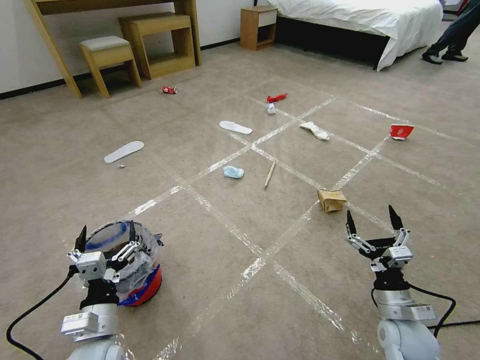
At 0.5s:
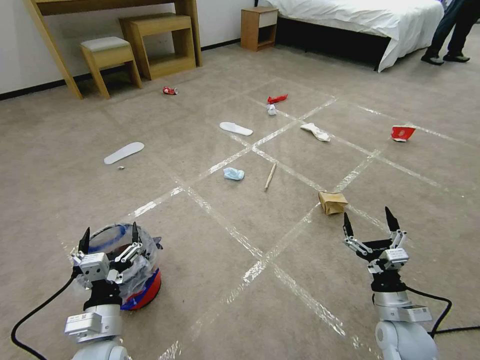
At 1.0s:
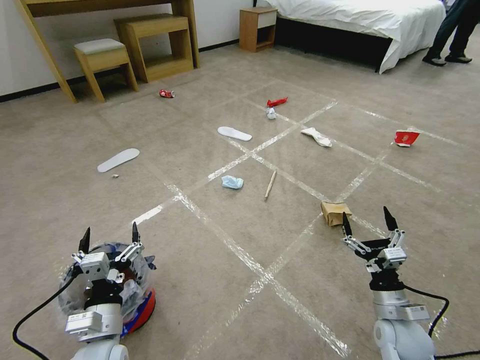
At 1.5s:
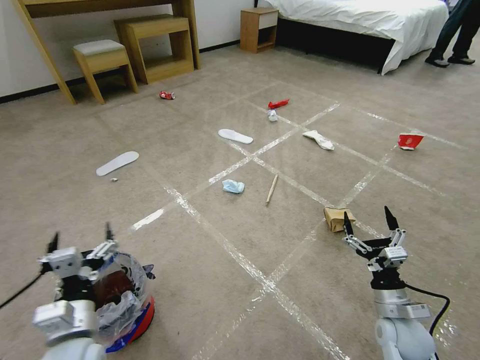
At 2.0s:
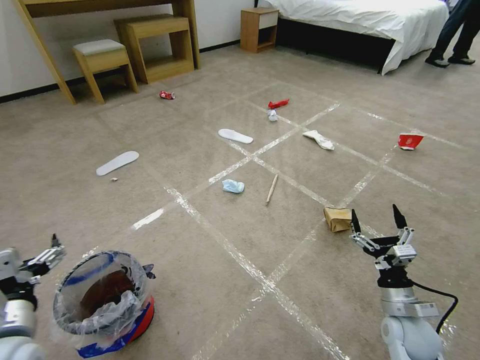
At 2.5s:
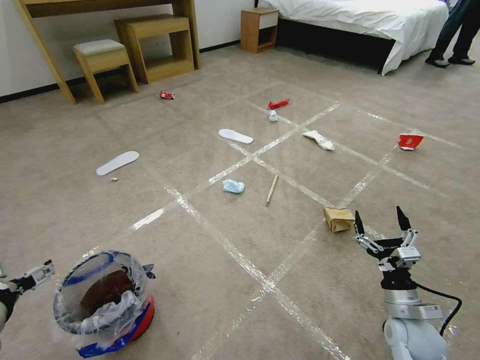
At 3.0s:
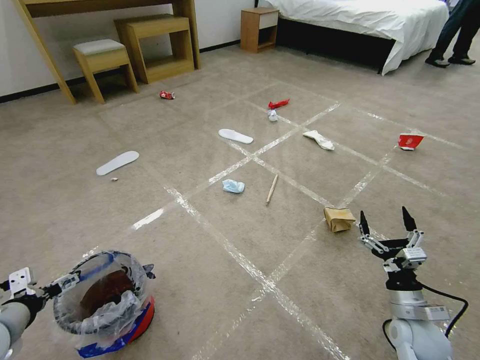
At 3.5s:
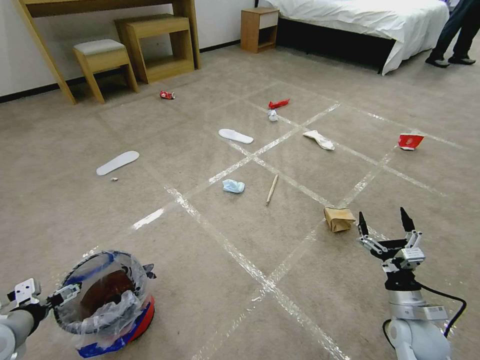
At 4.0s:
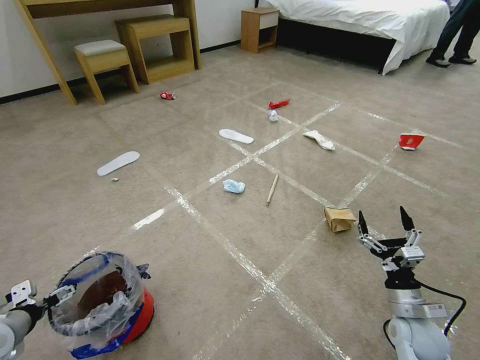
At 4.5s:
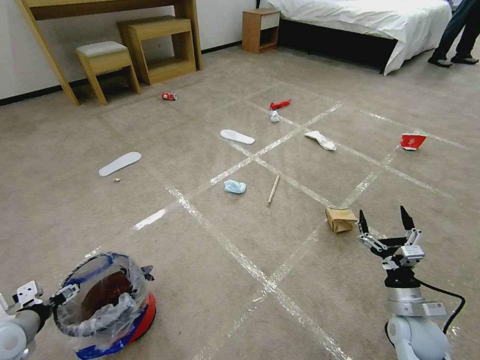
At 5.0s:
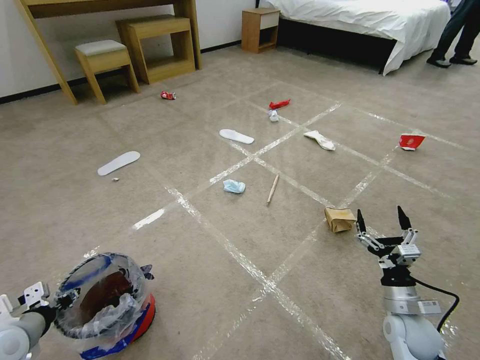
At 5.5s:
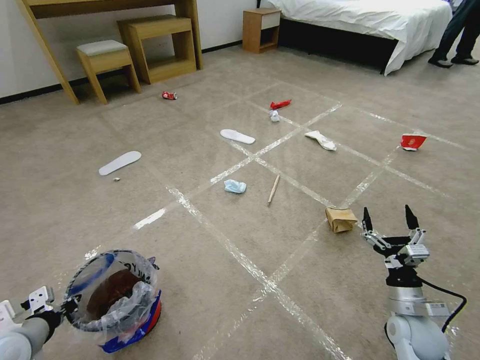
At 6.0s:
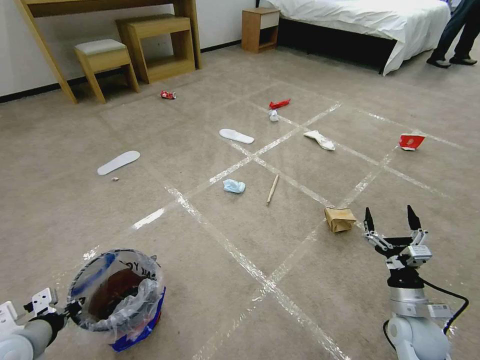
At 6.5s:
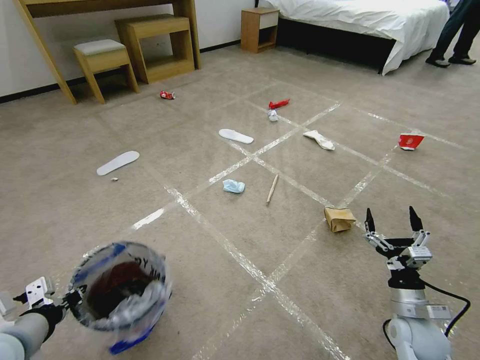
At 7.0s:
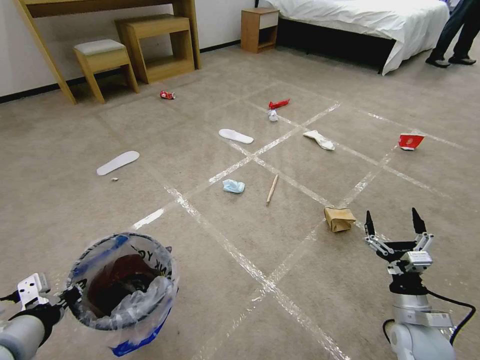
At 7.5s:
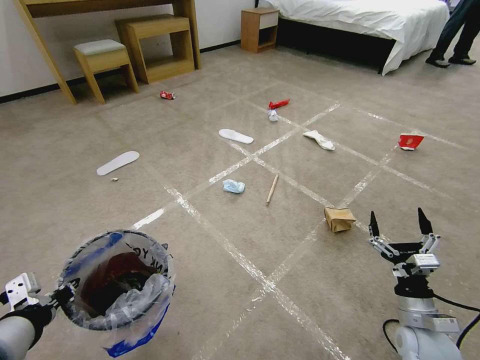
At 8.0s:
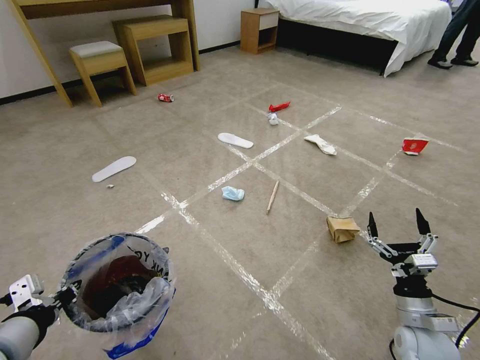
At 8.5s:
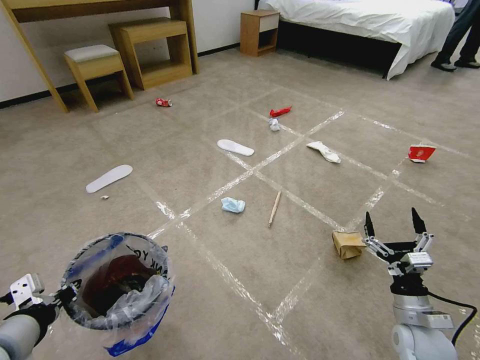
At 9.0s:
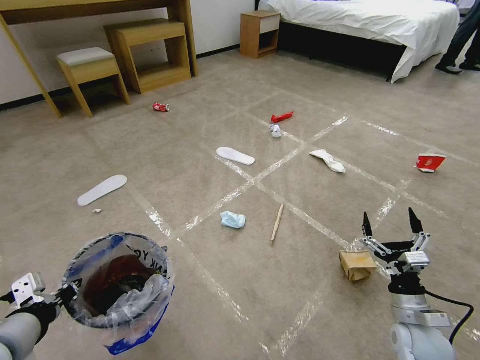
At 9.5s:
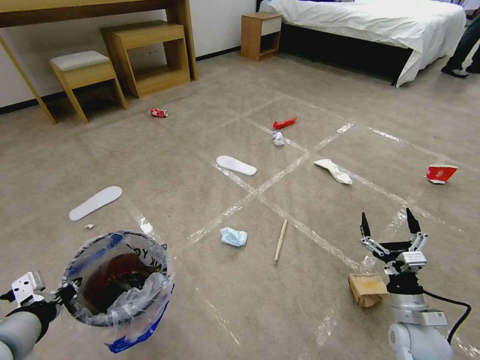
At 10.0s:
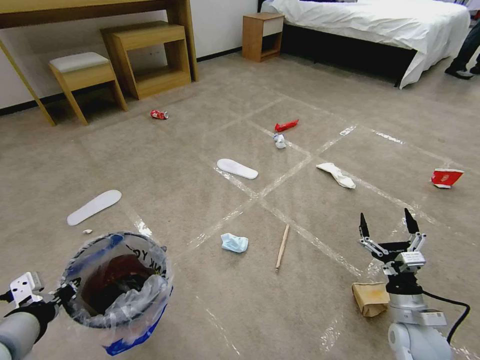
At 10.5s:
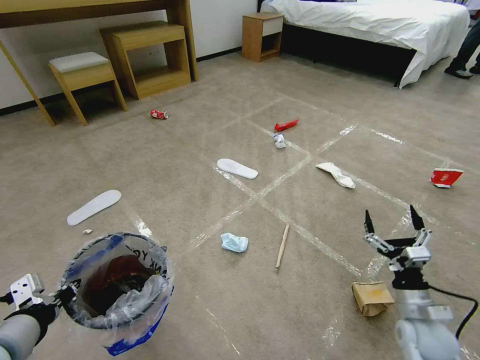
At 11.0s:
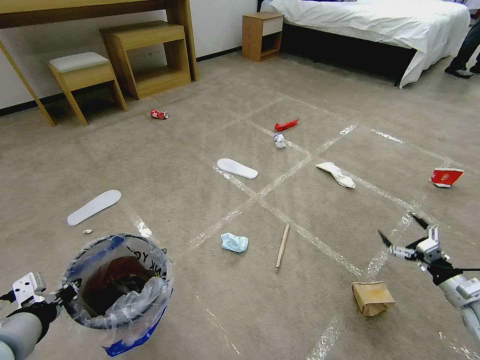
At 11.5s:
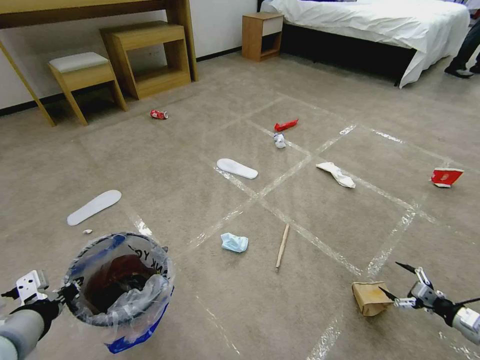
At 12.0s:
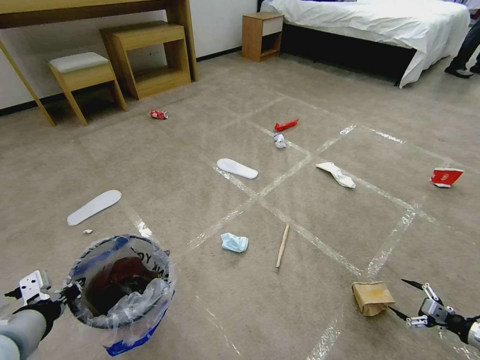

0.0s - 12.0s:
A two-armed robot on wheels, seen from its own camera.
Task of the whole recording: Pick up the trash bin and place the garbage on the floor into it.
2.0s - 4.0s: The left gripper moves to the left and downward, some 15 cm.
4.0s - 6.0s: The left gripper is displaced to the right by about 5 cm, and closes.
6.0s - 8.0s: The left gripper is displaced upward and to the right by approximately 15 cm.
10.0s - 12.0s: The right gripper shifts approximately 30 cm to the right.

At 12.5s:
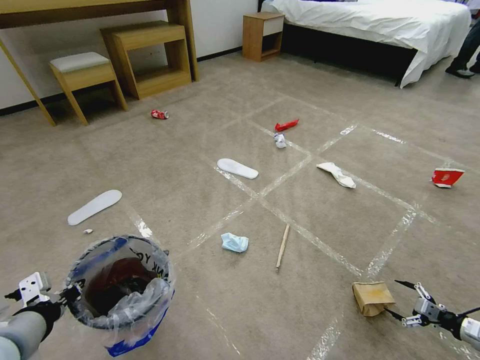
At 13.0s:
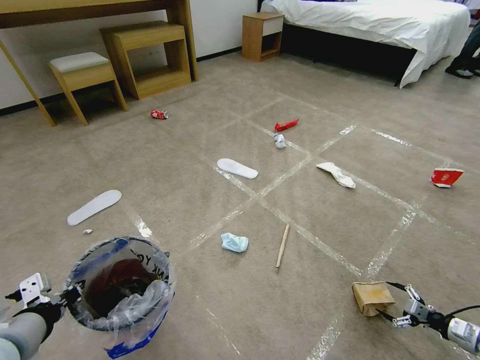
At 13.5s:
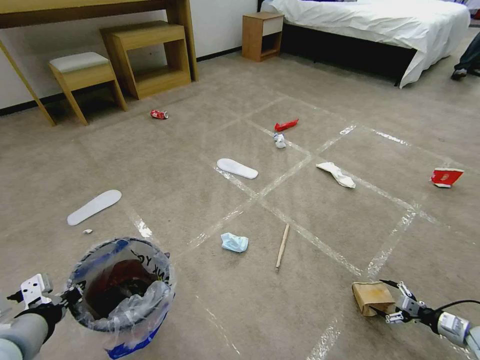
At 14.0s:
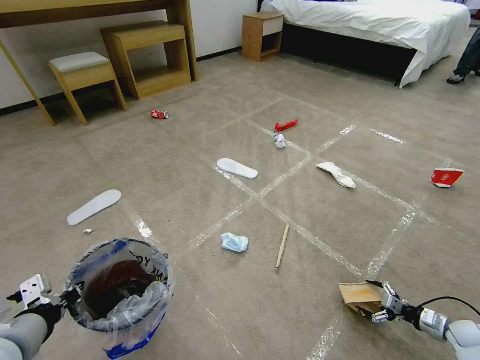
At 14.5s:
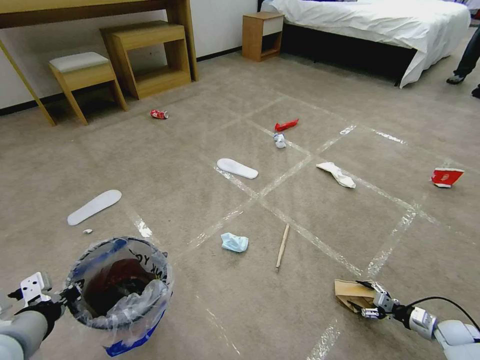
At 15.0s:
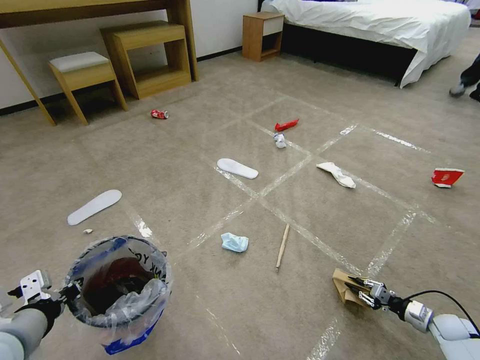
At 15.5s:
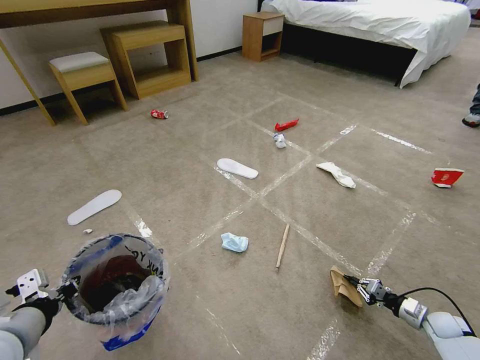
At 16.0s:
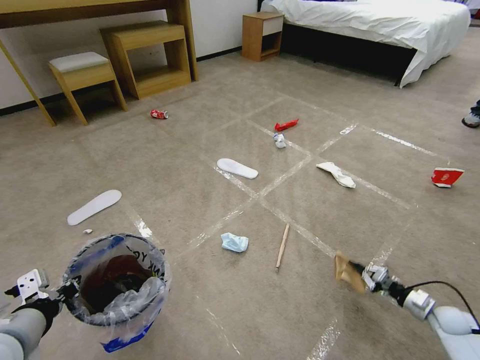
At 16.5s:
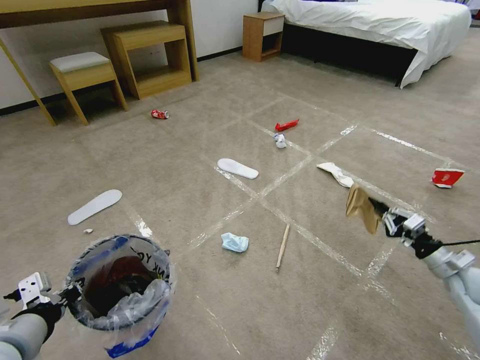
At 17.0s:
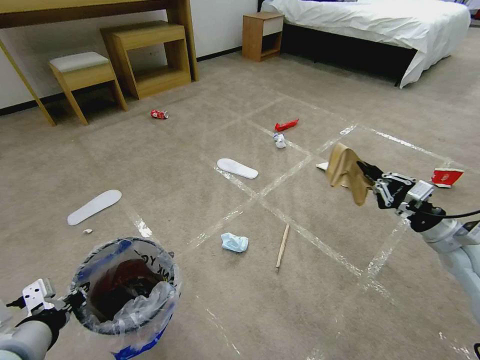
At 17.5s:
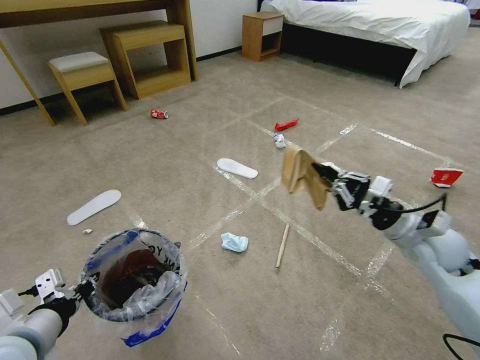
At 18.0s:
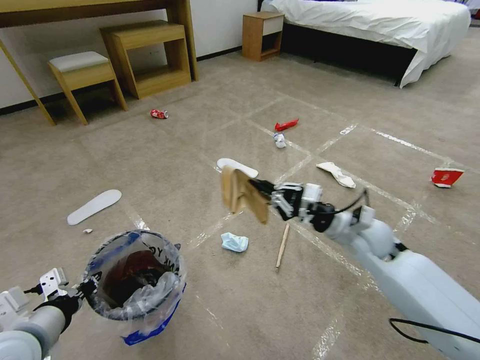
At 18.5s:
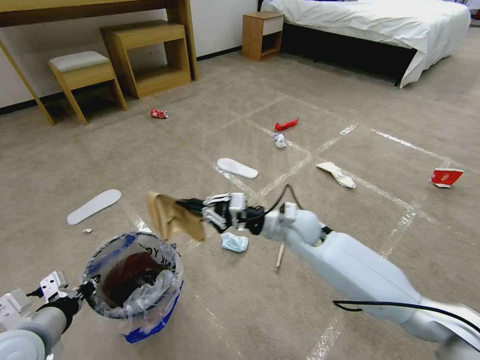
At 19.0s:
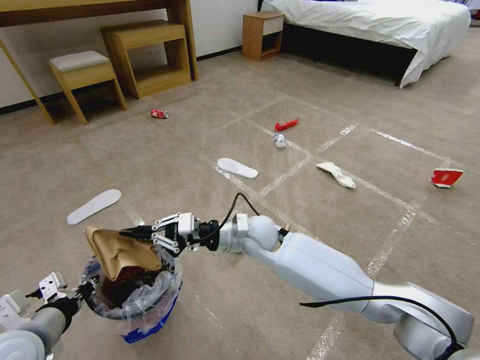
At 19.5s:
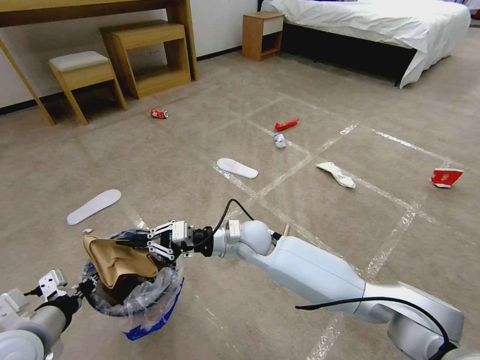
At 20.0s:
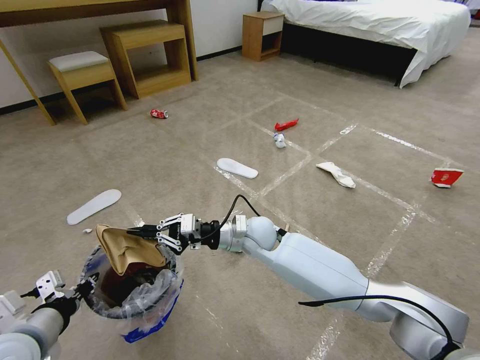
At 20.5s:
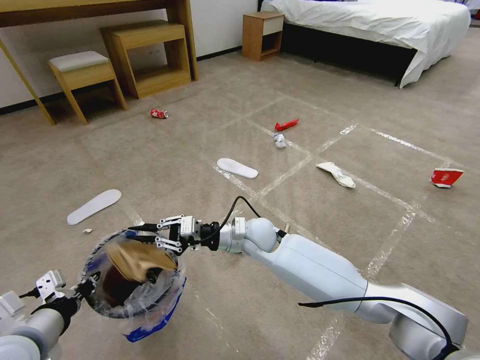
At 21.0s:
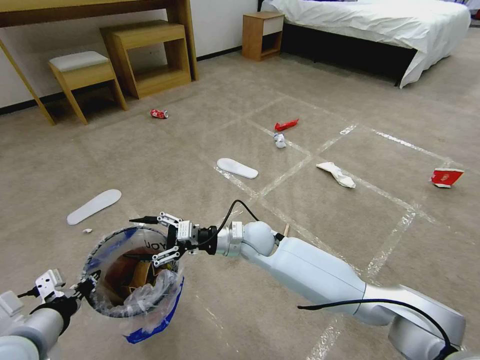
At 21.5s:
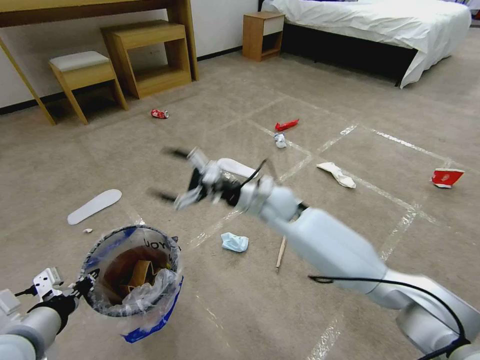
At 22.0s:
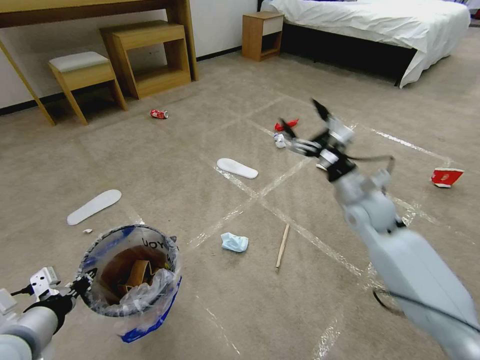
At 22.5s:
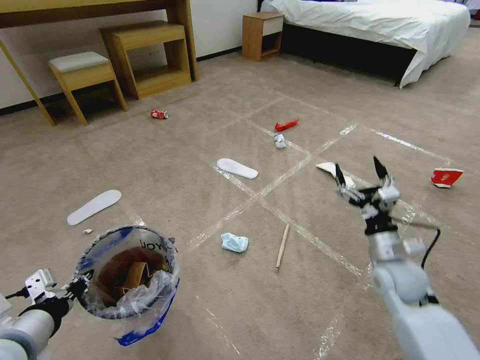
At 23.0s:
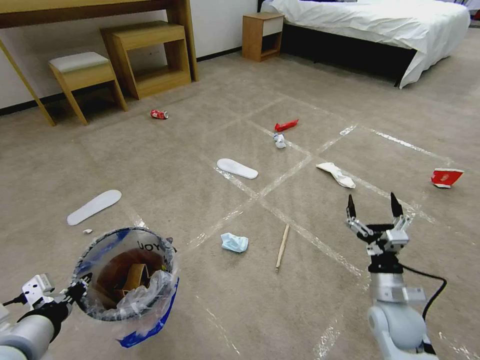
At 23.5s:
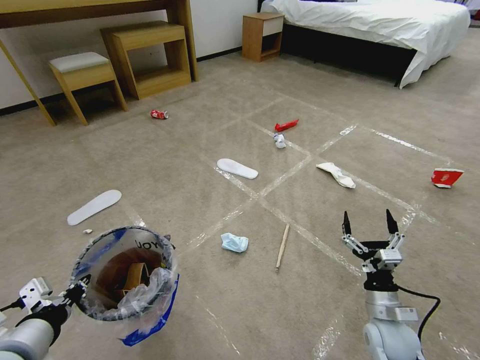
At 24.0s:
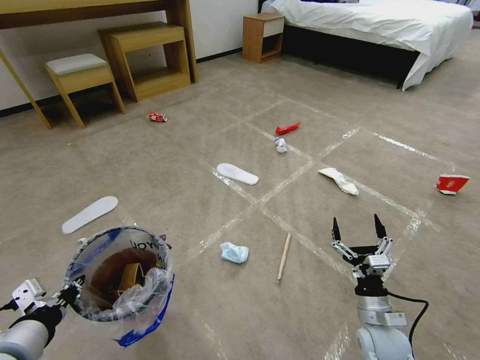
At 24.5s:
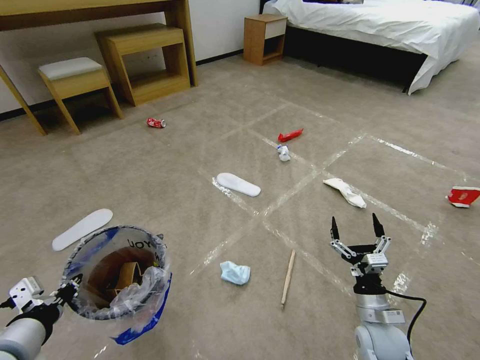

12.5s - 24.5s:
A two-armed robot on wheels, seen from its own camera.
Task of the whole recording: Pick up the trash bin and place the garbage on the floor into it.
12.5s - 14.5s: The right gripper heads downward, to the left and forward, covering roughly 10 cm.
14.5s - 16.5s: The right gripper heads upward, covering roughly 20 cm, and closes its fingers.
16.5s - 18.5s: The left gripper ends up roughly 5 cm from where it was. Meanwhile the right gripper goes about 40 cm to the left.
18.5s - 20.5s: The right gripper heads to the left, covering roughly 10 cm.
20.5s - 22.5s: The right gripper goes about 30 cm to the right, and opens.
22.5s - 24.5s: The right gripper travels downward and backward by roughly 15 cm.

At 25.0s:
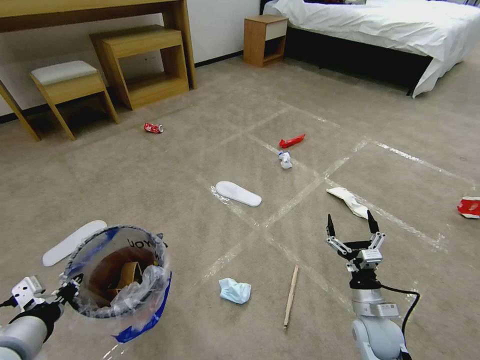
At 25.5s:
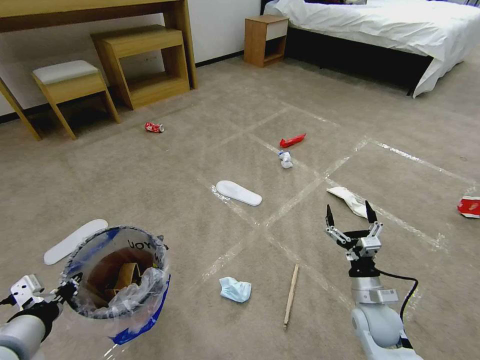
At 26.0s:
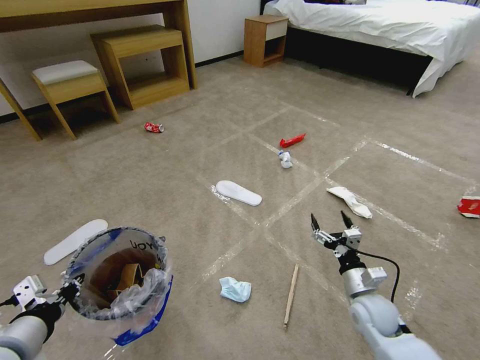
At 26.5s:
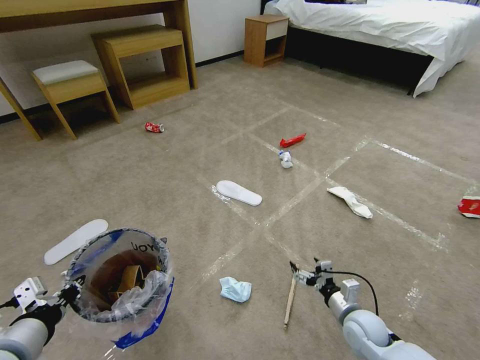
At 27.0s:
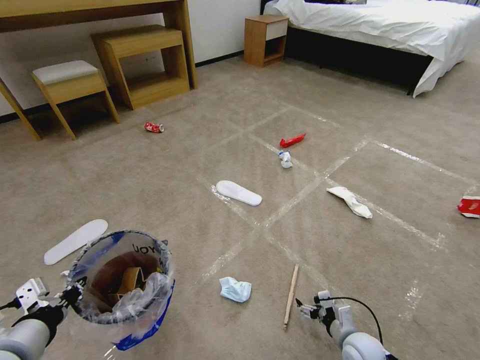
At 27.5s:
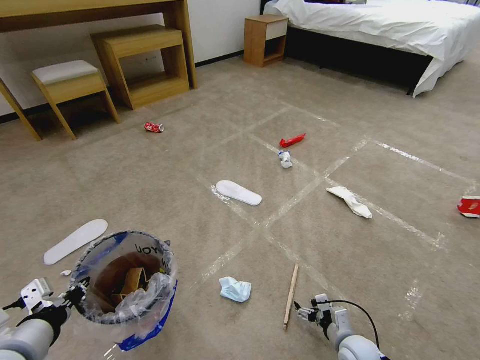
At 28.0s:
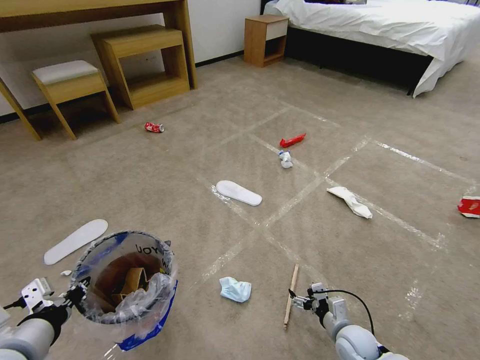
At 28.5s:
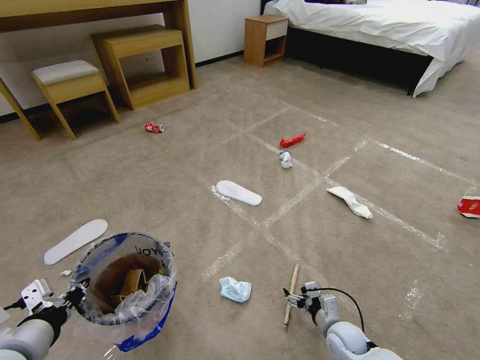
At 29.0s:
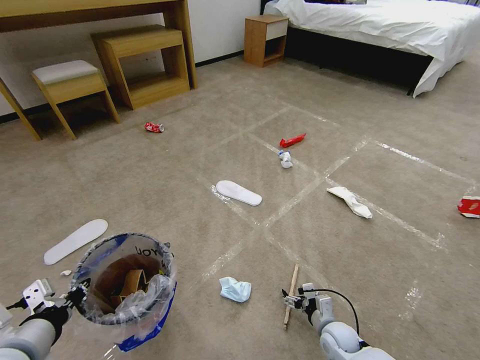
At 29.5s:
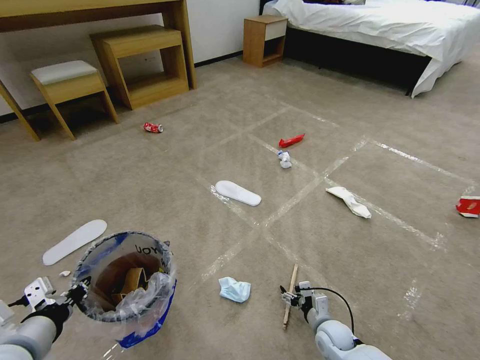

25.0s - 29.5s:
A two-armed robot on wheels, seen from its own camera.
Task of the whole recording: Pick up the trash bin and place the garbage on the floor into it.
25.0s - 27.0s: The right gripper travels downward by roughly 10 cm.
27.0s - 29.5s: The right gripper ends up approximately 5 cm from where it was.
